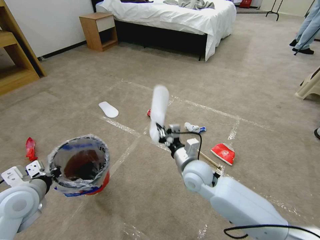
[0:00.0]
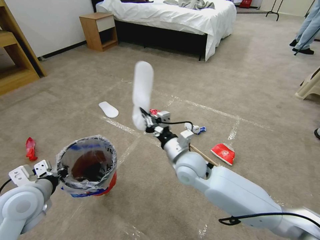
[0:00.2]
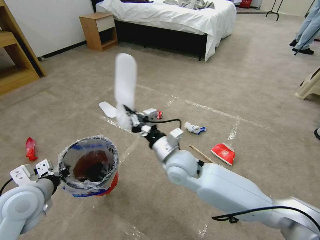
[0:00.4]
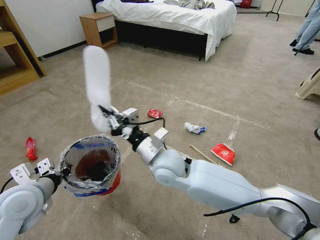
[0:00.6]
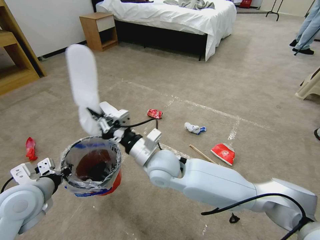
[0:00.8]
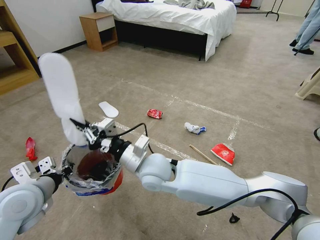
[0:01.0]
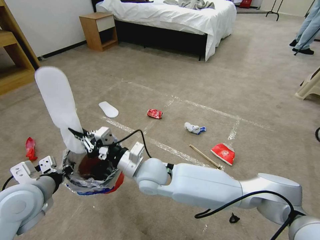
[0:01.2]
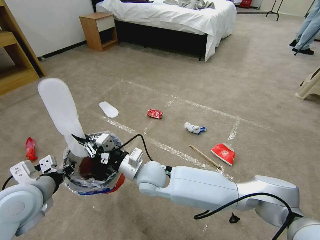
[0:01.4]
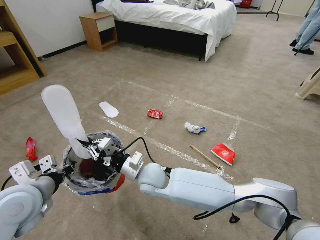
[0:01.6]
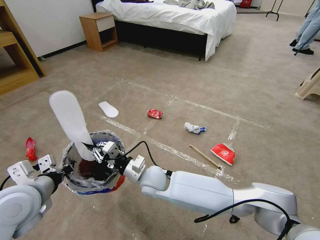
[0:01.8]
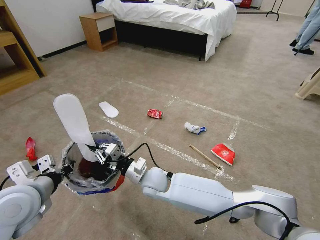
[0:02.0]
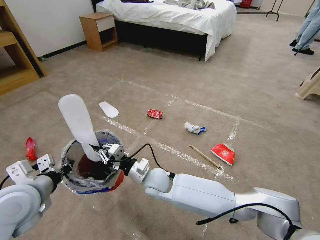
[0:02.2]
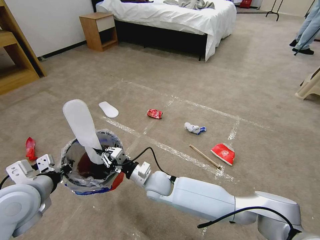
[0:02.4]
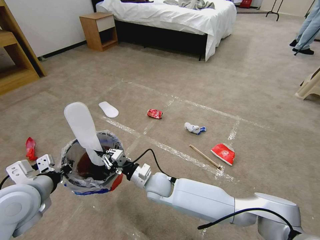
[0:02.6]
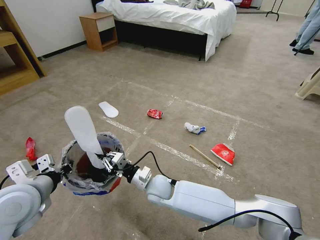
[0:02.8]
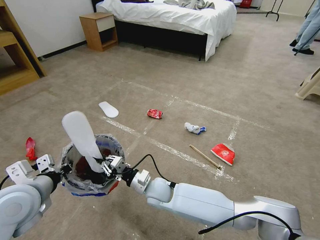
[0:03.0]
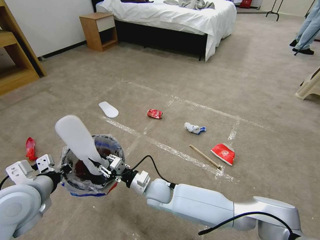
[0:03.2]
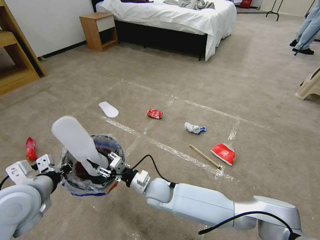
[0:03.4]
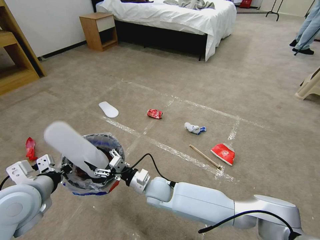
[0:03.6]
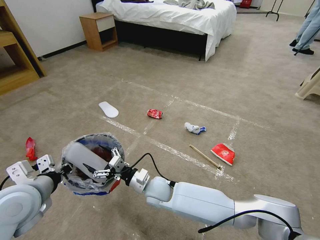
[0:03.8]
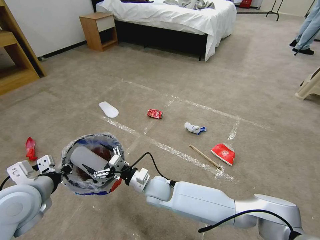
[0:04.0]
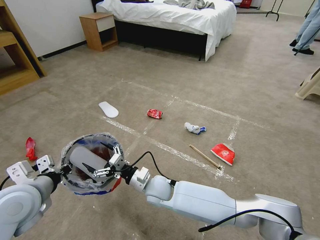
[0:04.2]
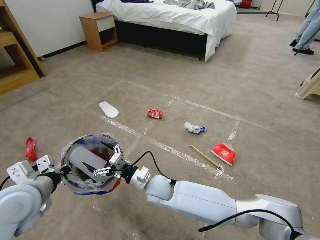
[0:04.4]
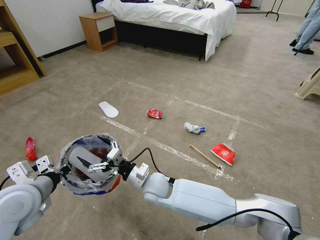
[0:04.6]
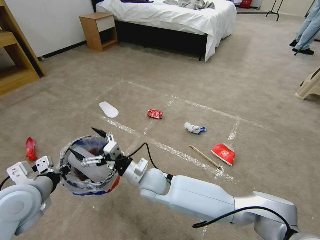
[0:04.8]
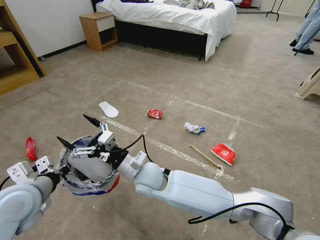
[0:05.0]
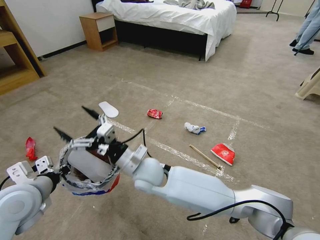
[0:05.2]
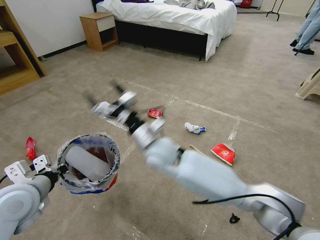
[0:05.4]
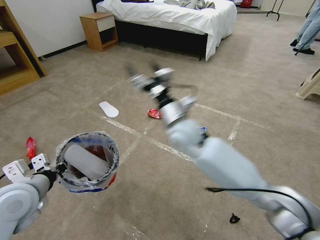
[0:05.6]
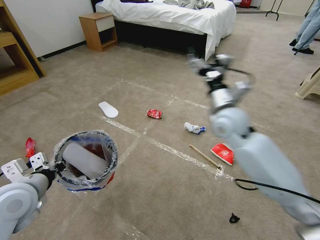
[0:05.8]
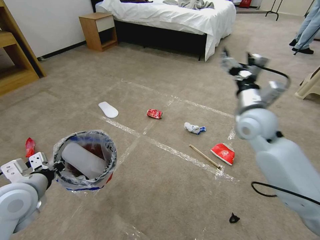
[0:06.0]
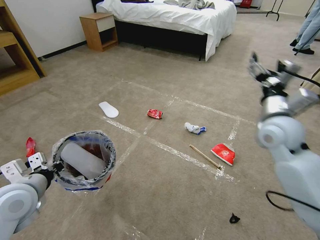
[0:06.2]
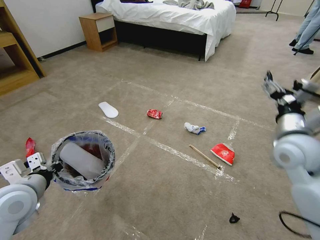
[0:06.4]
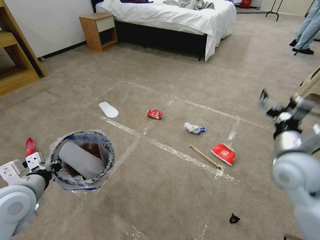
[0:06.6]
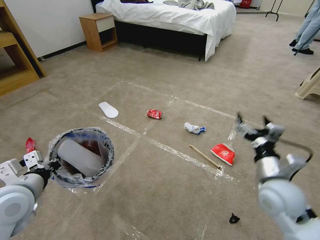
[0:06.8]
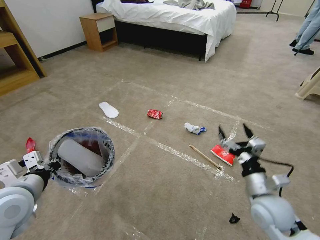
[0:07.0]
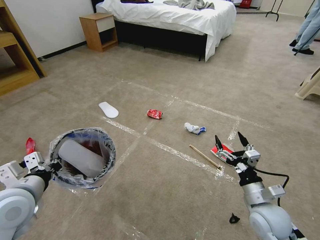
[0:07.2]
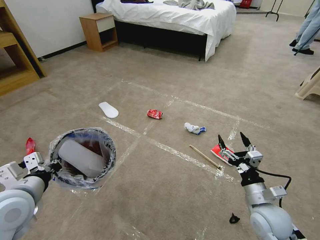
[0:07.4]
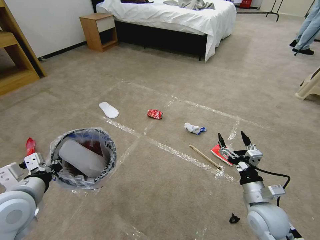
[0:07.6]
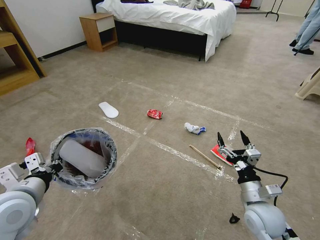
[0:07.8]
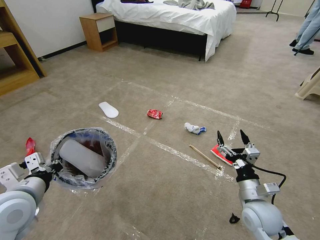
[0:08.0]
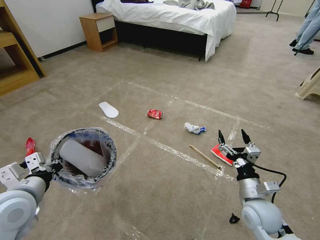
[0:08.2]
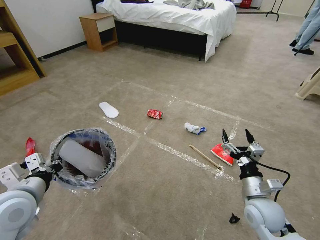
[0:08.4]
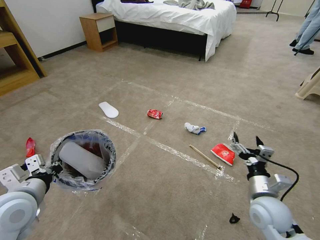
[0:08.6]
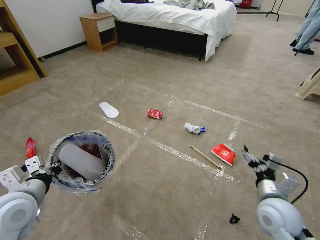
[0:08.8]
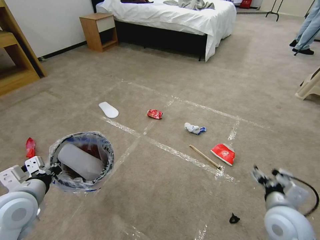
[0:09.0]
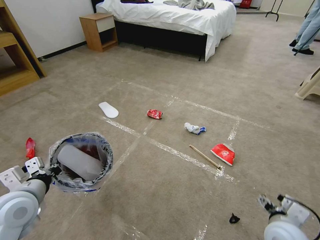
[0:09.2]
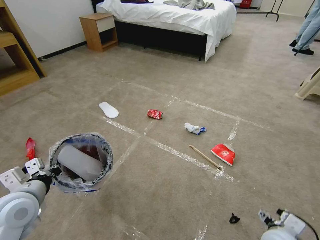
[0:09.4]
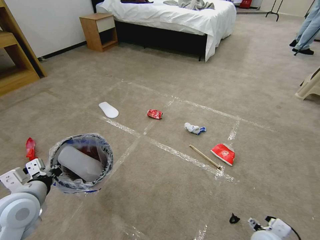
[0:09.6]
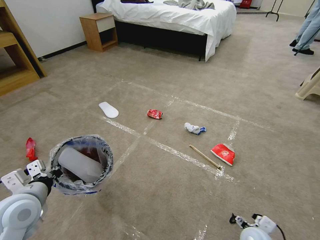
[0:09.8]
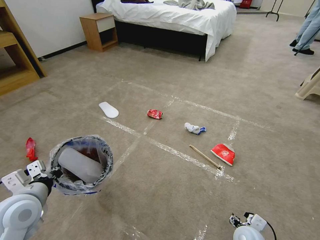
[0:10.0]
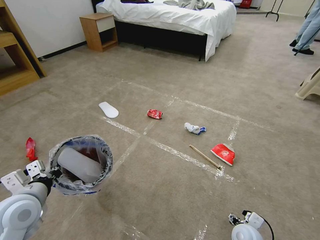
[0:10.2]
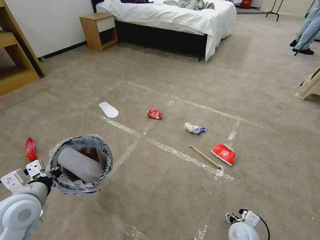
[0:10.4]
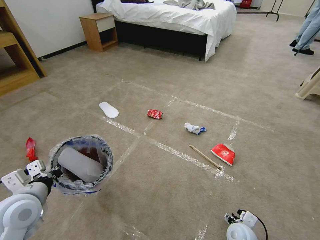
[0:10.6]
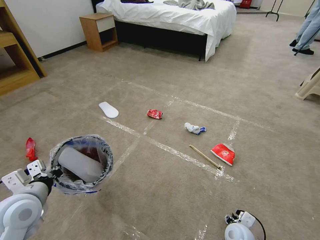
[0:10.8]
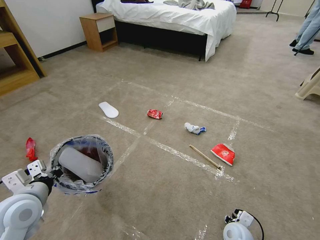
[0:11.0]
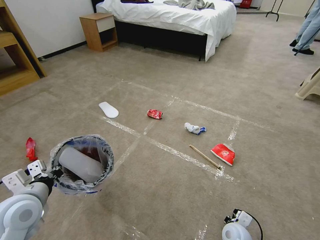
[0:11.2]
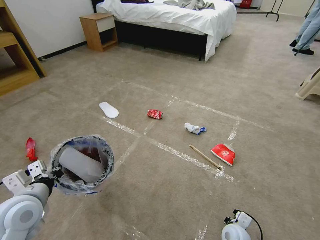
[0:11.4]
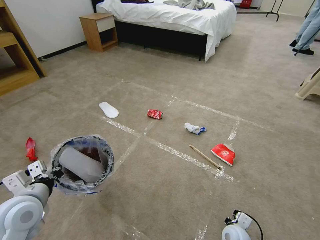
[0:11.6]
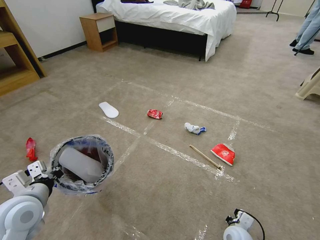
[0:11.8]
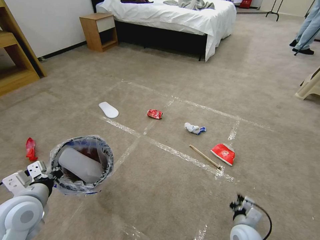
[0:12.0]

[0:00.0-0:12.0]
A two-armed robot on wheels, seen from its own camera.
Task of the whole recording: Pick up the trash bin and place the garbage on the floor into it.
0:00.0 to 0:01.6: The left gripper shifts by roughly 5 cm. The right gripper moves to the left, about 15 cm.
0:01.6 to 0:03.0: The right gripper moves downward, some 10 cm.
0:03.0 to 0:04.4: The right gripper opens its fingers.
0:04.4 to 0:06.0: The right gripper goes about 35 cm to the right and upward.
0:06.0 to 0:07.6: The right gripper goes roughly 30 cm downward and backward.
0:07.6 to 0:09.0: The right gripper moves roughly 5 cm.
0:09.0 to 0:10.4: The right gripper moves downward, about 20 cm.
0:10.4 to 0:12.0: The right gripper closes up.

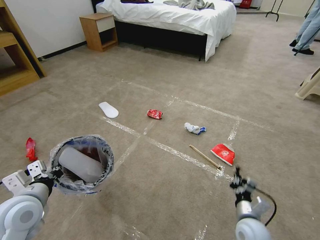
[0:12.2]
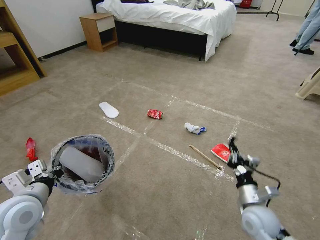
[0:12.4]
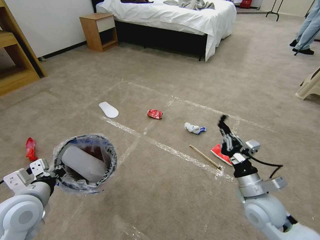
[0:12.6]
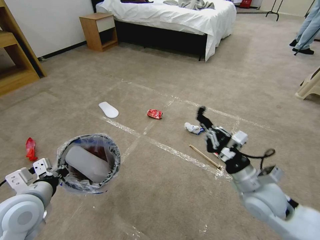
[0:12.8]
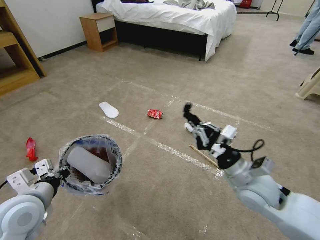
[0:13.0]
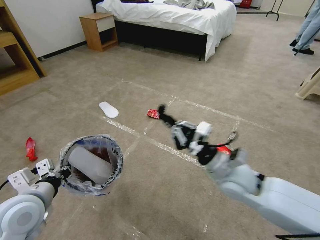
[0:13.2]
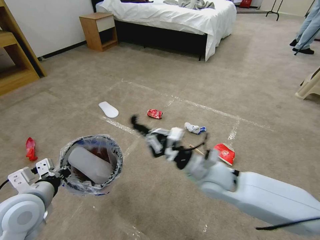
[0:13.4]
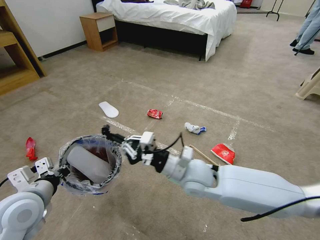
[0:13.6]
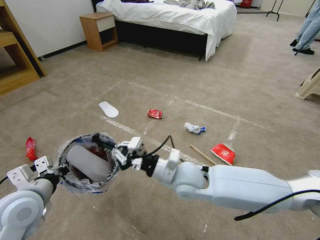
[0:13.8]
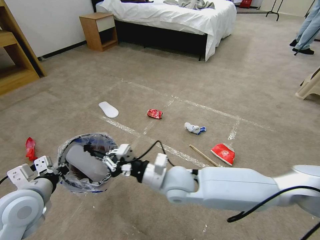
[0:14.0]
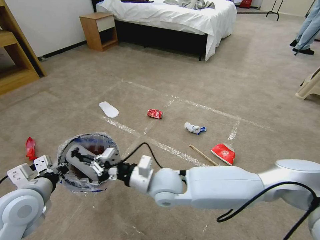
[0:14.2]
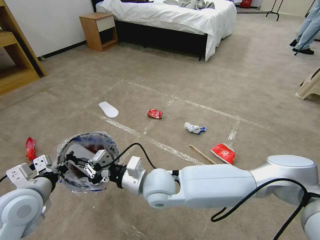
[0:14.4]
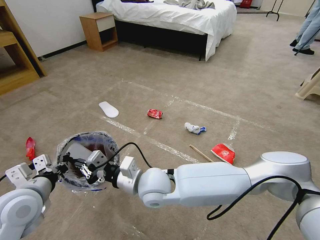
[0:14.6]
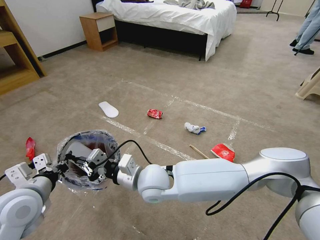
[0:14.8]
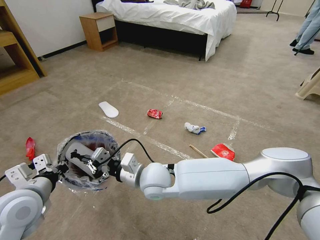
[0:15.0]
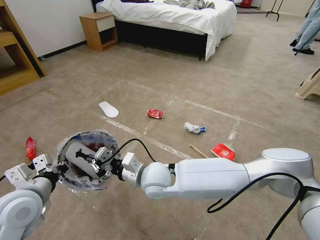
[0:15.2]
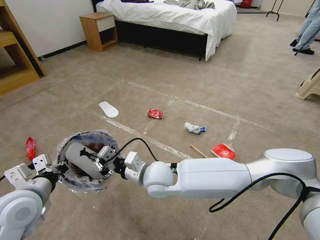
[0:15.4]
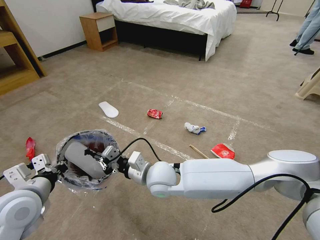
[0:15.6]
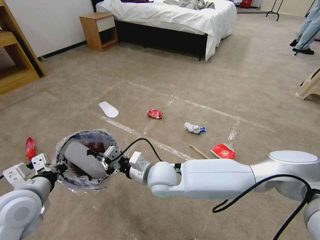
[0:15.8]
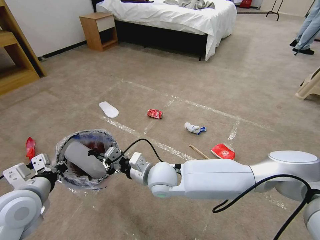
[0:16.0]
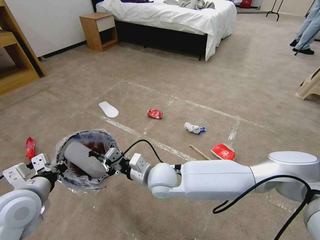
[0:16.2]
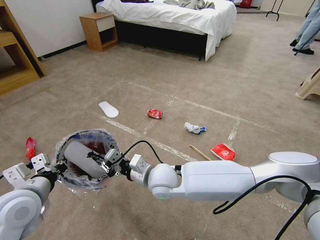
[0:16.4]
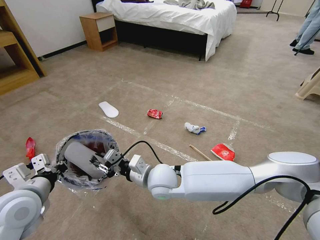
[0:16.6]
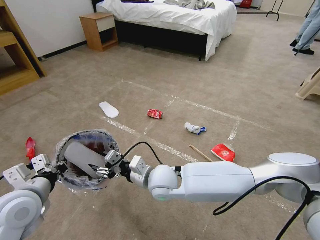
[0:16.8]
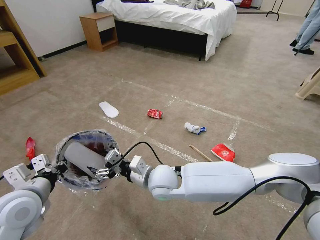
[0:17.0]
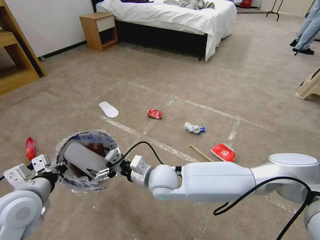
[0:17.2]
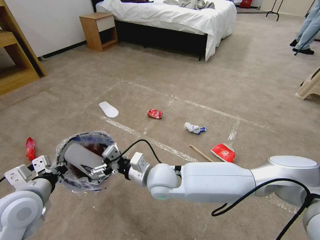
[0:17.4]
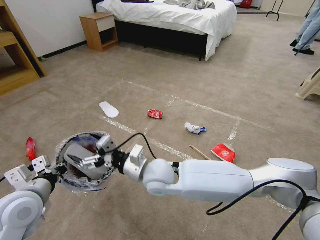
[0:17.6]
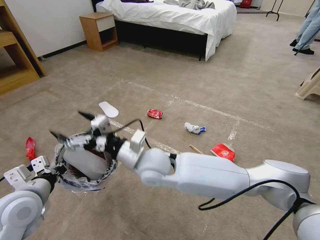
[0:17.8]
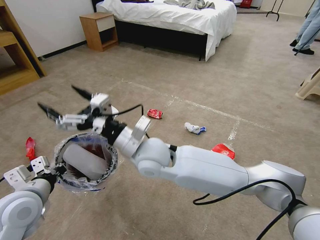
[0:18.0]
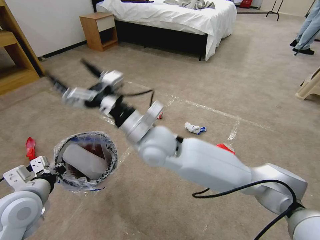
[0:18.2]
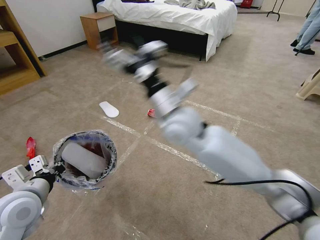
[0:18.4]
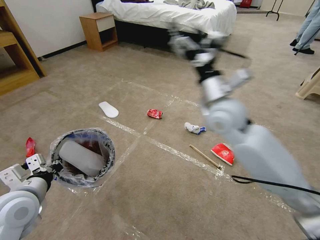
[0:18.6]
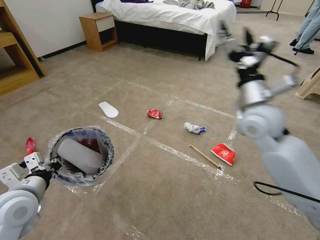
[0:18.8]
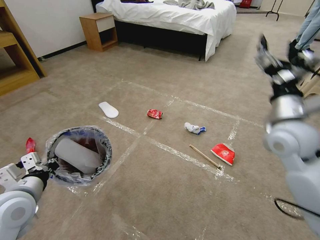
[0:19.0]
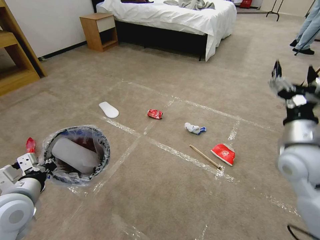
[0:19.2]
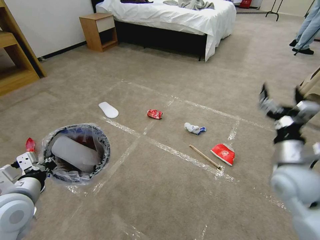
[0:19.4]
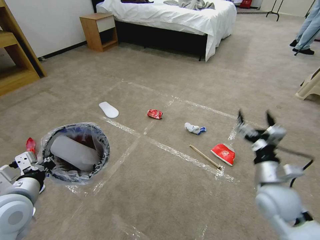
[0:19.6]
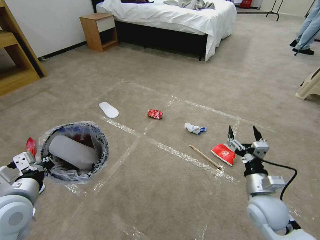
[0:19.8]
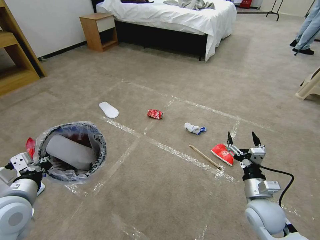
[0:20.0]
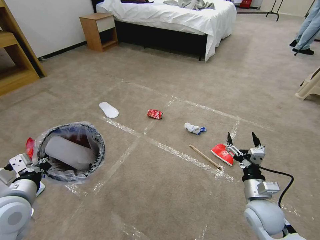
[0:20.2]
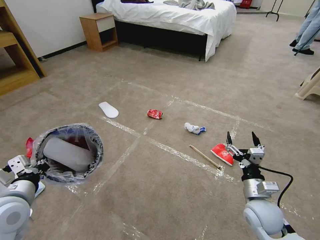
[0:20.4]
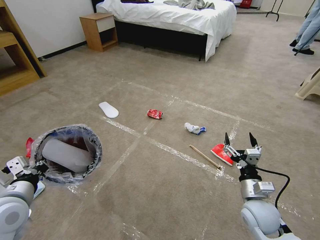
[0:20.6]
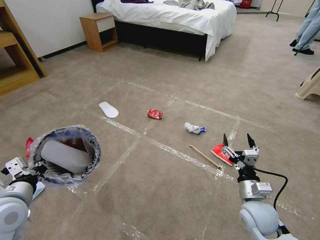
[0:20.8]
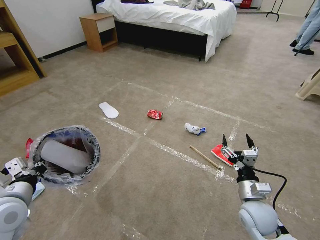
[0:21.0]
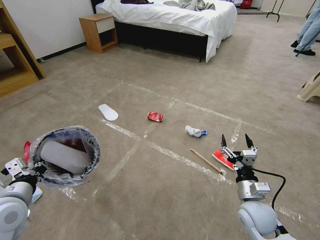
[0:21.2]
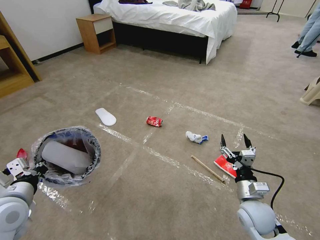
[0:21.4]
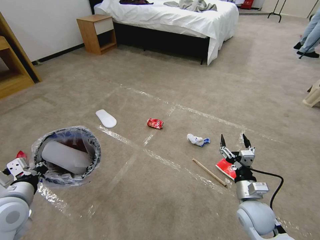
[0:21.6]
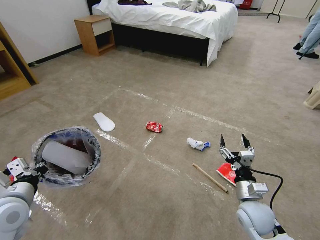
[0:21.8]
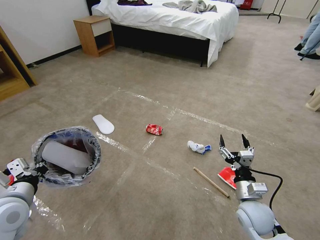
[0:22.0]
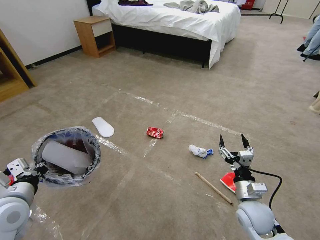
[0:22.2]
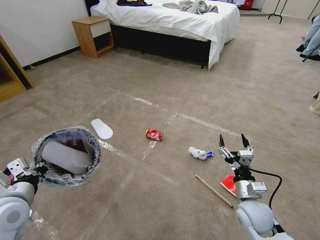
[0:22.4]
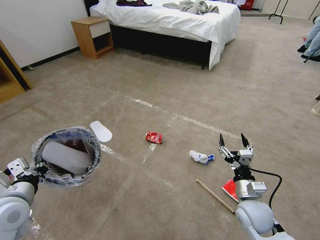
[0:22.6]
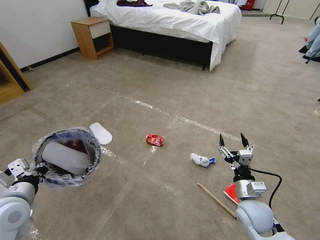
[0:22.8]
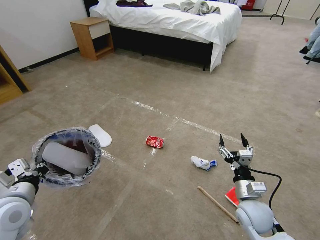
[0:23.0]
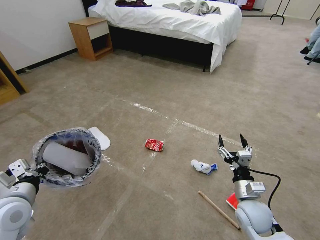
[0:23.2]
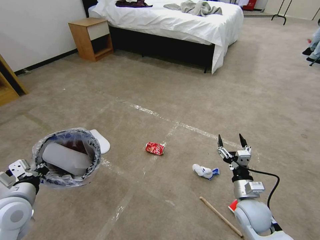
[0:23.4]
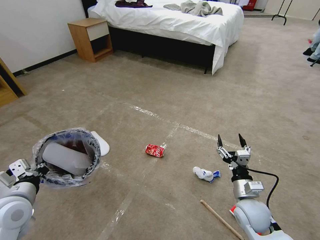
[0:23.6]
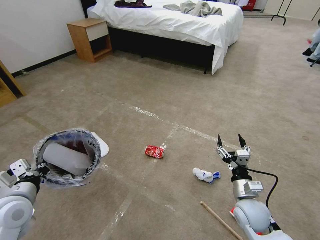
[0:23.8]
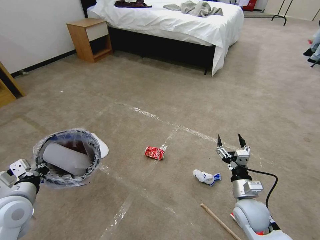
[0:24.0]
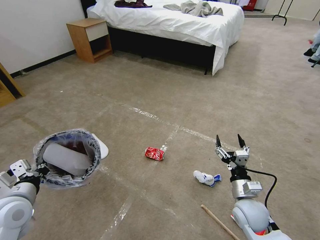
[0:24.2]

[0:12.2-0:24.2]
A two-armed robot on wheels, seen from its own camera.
Task of the whole recording: Pick up the trash bin and place the garbage on the floor into it.
0:12.2 to 0:13.8: The right gripper shifts about 30 cm to the left, upward and forward.
0:13.8 to 0:15.2: The right gripper is displaced to the left by roughly 10 cm.
0:15.2 to 0:16.6: The grippers move only a little.
0:16.6 to 0:18.2: The right gripper travels upward by some 15 cm, and opens its fingers.
0:18.2 to 0:19.8: The right gripper travels to the right and downward by some 35 cm.
0:19.8 to 0:21.2: The grippers make only small movements.
0:22.6 to 0:24.2: The grippers move only a little.
